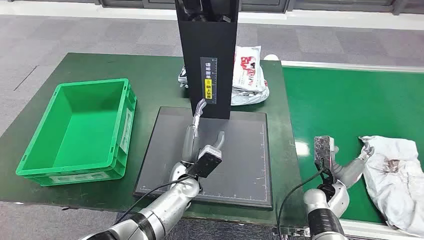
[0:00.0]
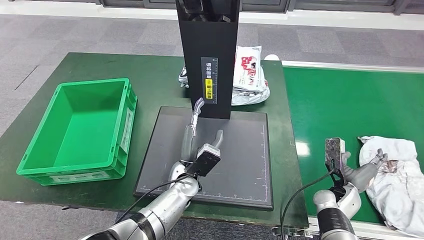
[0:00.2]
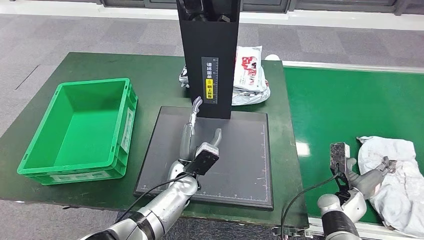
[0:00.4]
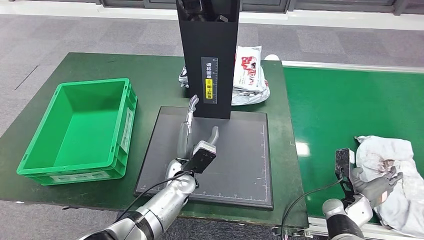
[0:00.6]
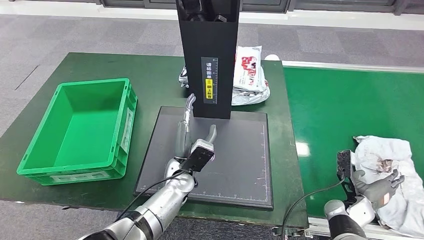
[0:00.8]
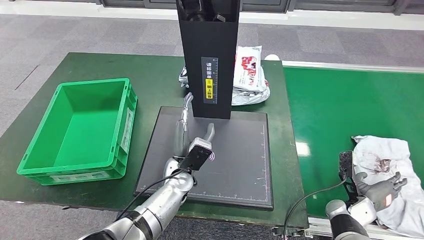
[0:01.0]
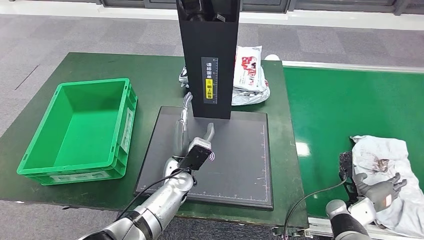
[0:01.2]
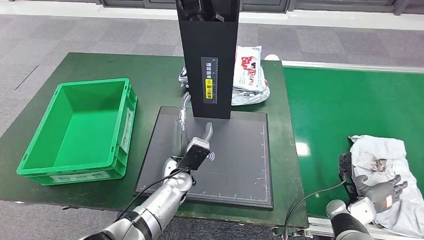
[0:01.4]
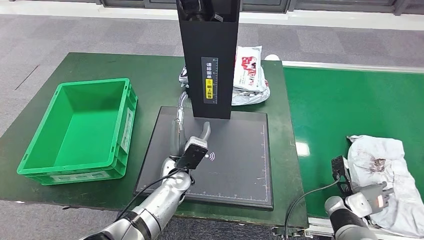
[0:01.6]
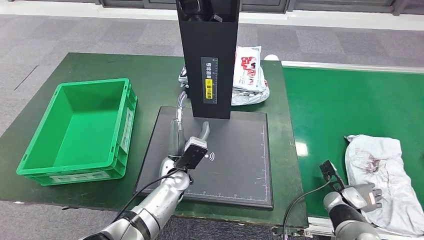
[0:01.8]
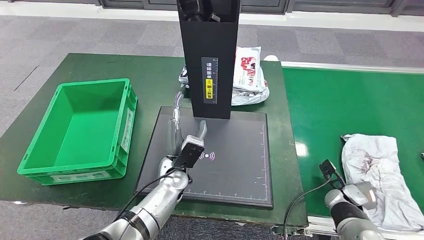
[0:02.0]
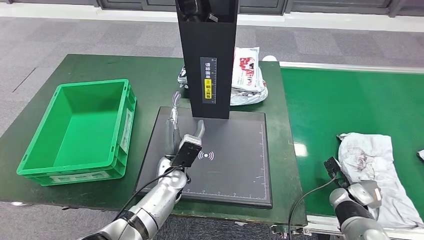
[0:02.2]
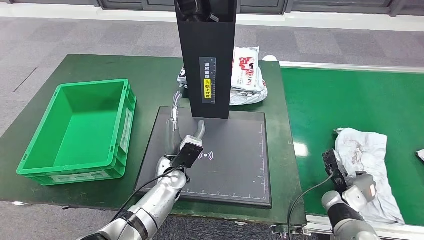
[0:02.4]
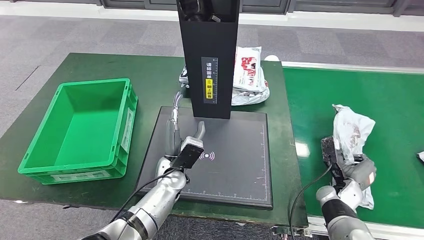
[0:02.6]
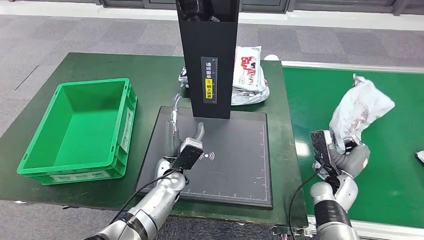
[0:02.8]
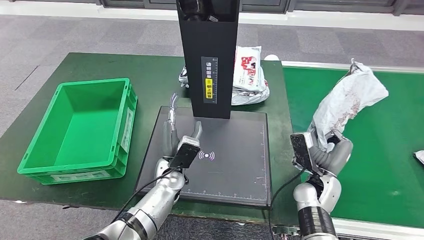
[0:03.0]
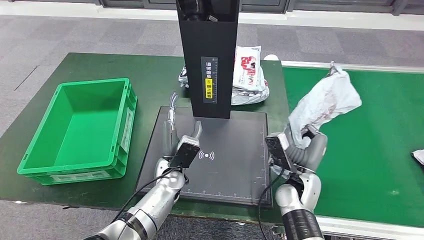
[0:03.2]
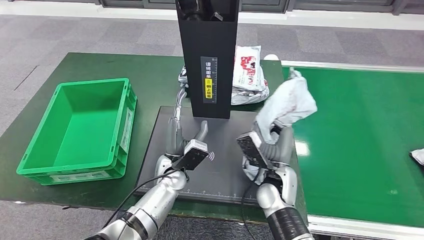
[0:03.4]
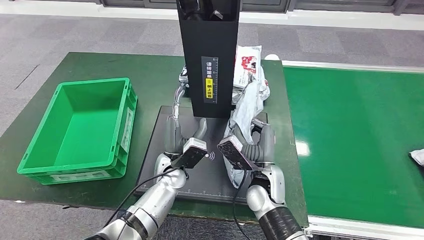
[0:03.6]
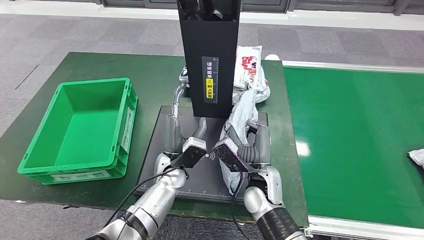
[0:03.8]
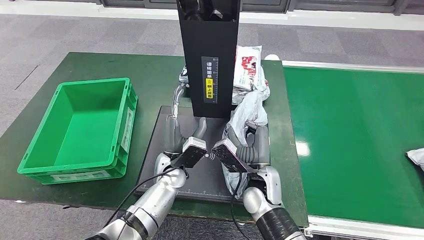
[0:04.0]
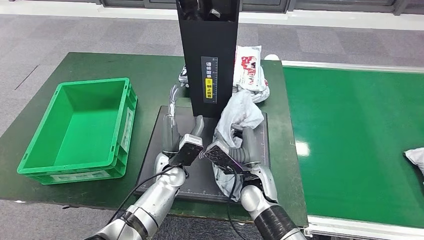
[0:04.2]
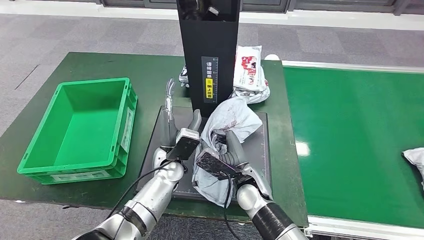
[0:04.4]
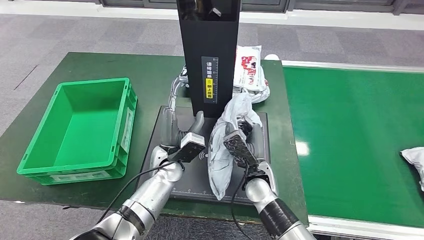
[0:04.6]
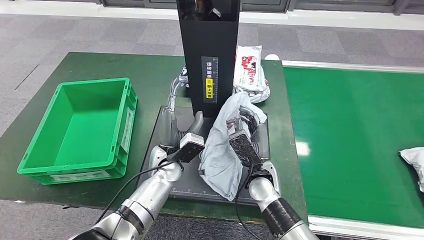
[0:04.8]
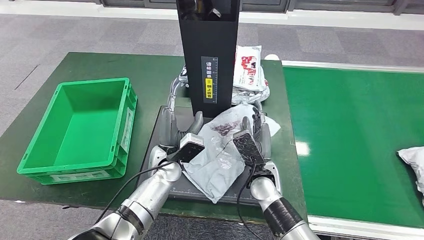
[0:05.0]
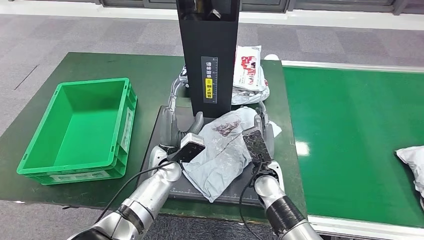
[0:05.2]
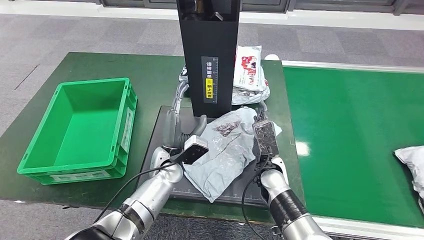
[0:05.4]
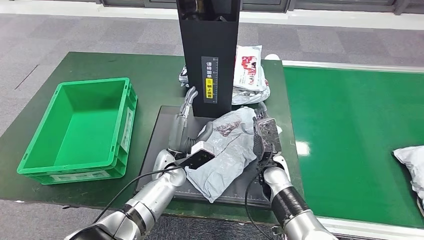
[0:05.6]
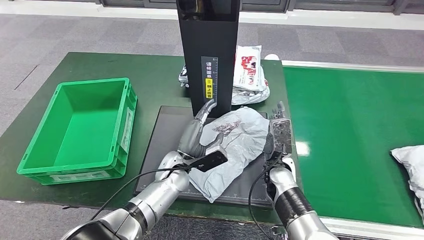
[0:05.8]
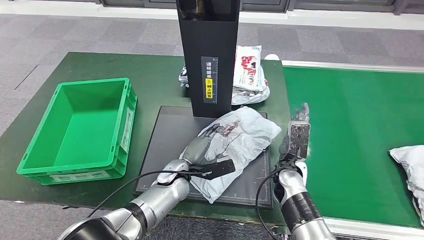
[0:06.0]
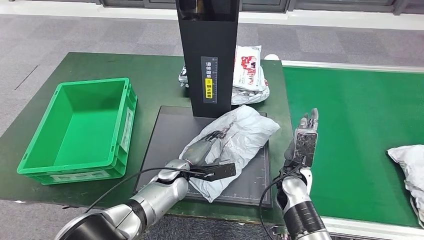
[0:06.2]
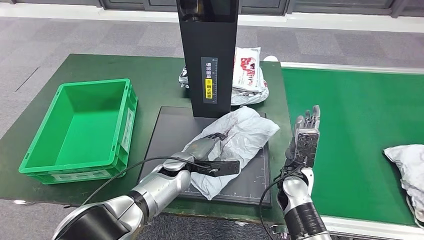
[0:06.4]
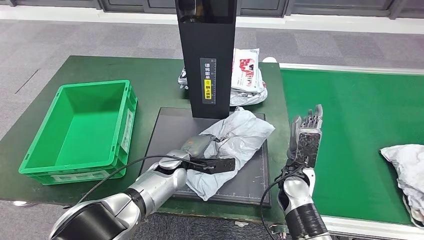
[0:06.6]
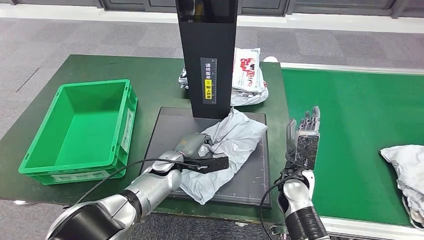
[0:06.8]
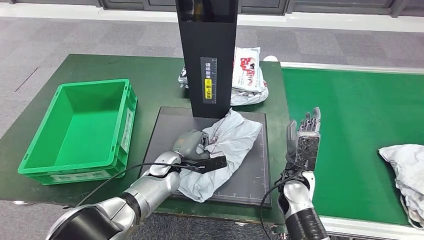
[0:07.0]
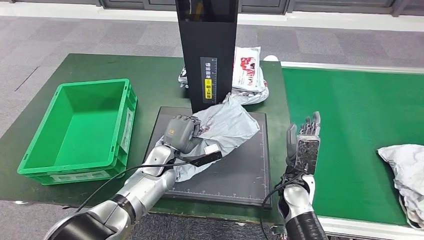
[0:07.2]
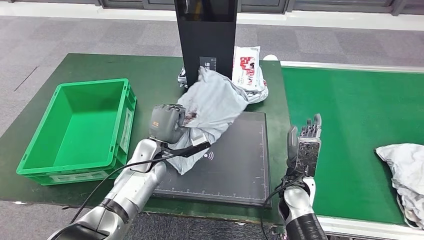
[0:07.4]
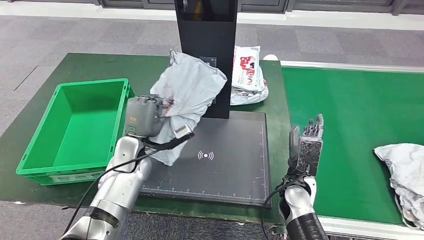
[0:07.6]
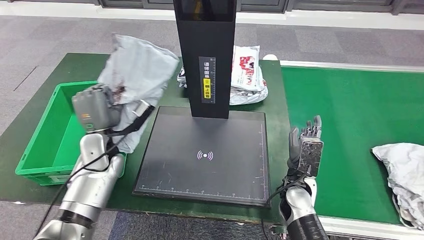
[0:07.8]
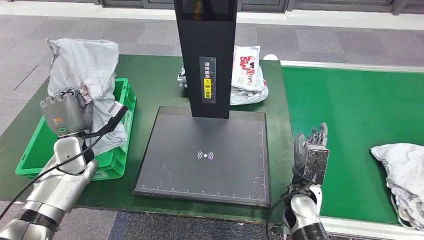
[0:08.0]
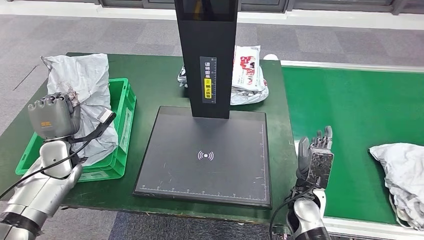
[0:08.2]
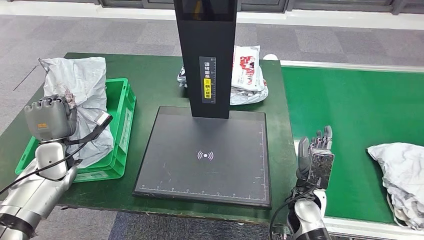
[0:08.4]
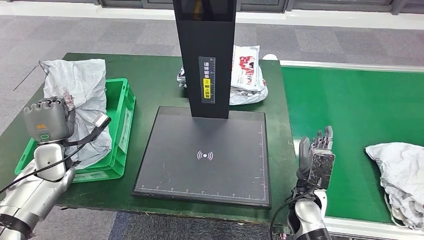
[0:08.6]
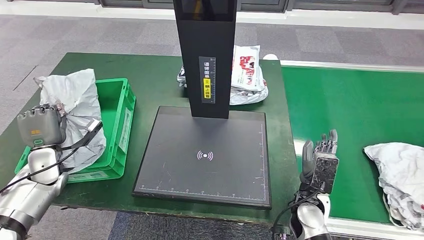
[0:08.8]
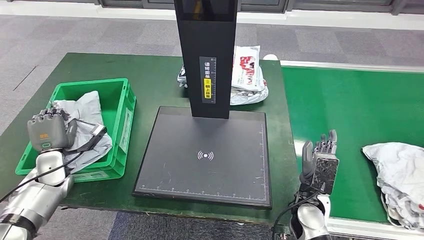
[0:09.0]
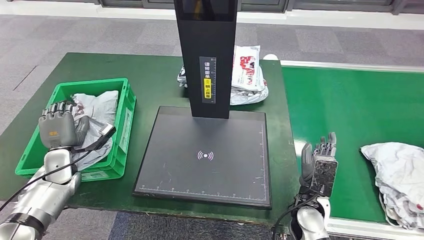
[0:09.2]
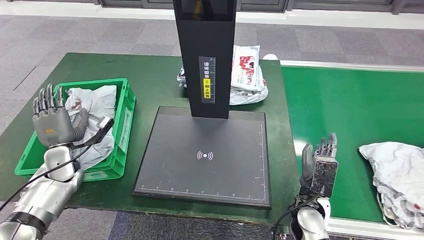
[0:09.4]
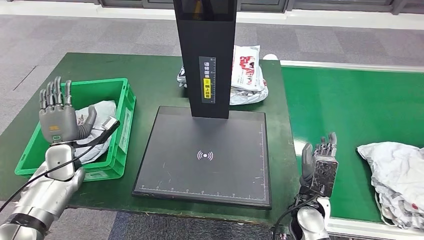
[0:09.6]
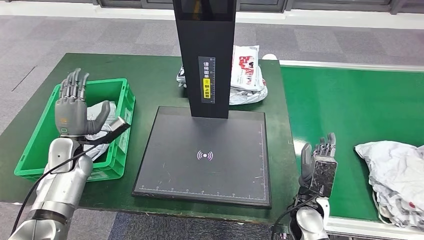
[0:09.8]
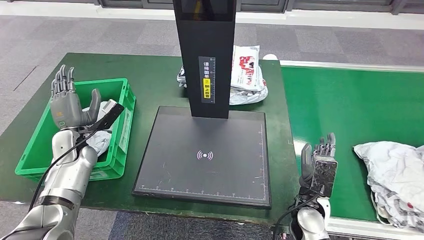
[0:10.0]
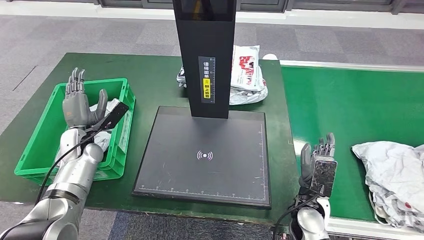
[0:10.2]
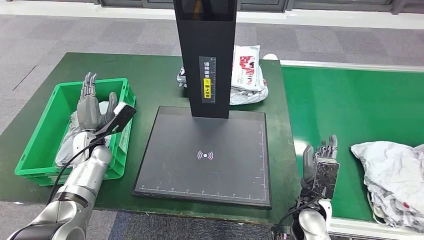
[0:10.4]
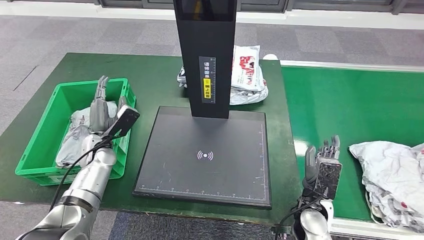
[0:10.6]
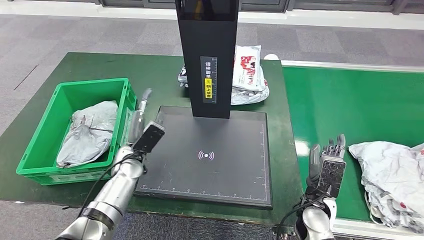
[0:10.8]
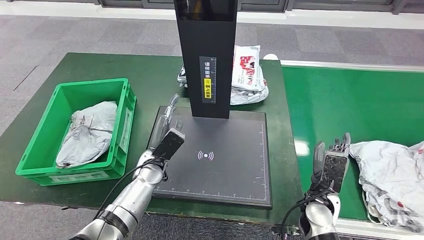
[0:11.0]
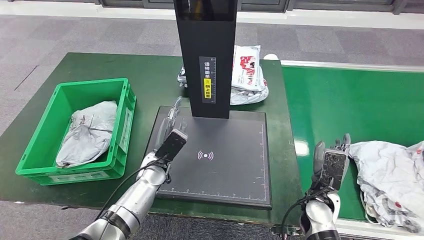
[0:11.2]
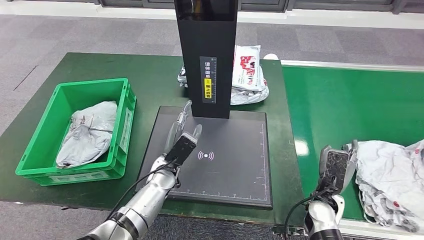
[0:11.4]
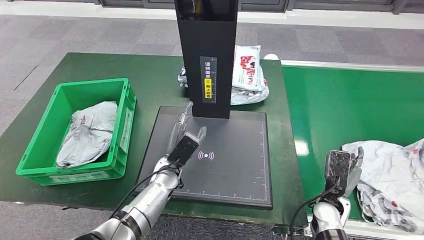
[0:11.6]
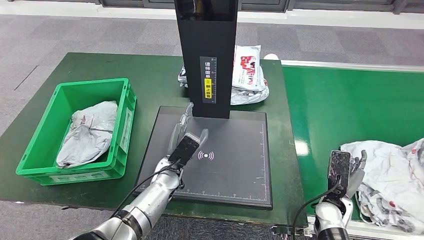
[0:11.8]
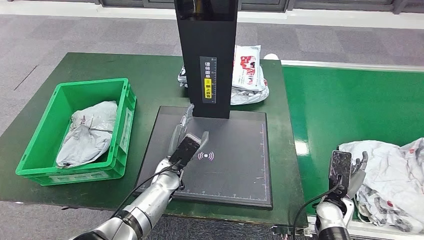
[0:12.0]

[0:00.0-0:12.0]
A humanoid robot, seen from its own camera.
Step, 0.0 to 3.0 s: Take the parcel off the conveyor belt.
Step, 3.2 to 6.0 s: Place the parcel onto the inbound machine.
Step, 6.2 to 7.8 s: Pick up the parcel from the inbound machine.
Step, 8.0 to 10.0 s: Put the parcel inside the courier box.
4.4 to 6.0 s: The left hand goes roughly 5 cm downward, while the right hand is displaced to the right by about 10 cm.
9.0 to 10.4 s: The left hand moves to the right and forward, some 10 cm.
10.4 to 12.0 s: The right hand shifts about 10 cm to the right. The left hand moves to the right, approximately 25 cm.

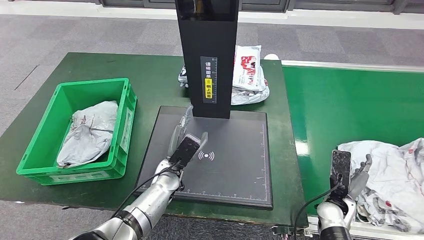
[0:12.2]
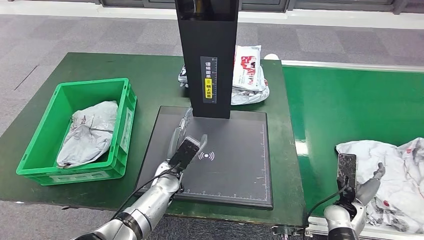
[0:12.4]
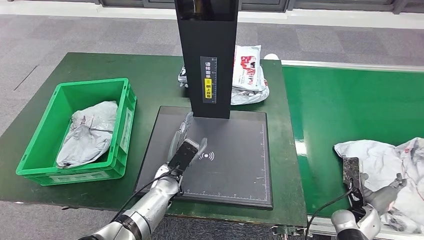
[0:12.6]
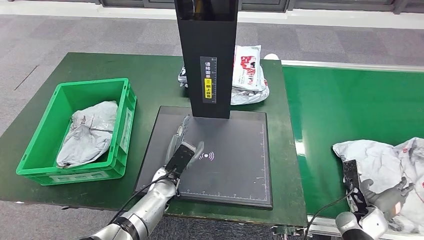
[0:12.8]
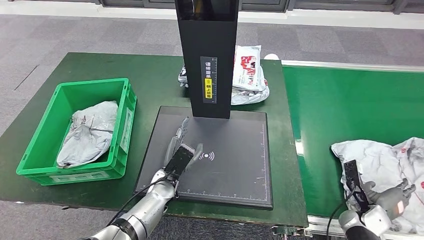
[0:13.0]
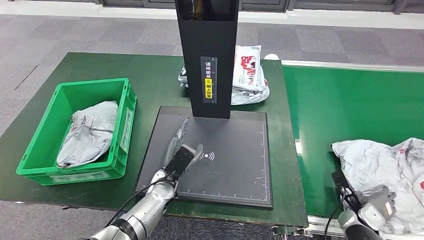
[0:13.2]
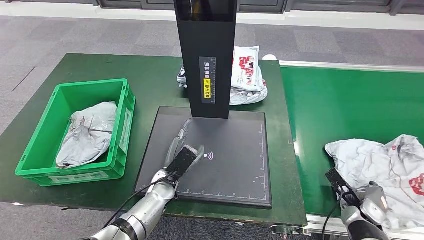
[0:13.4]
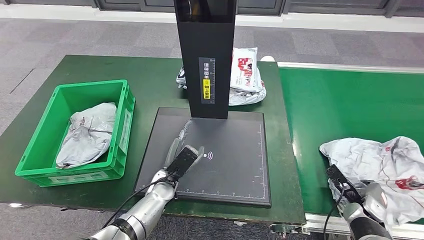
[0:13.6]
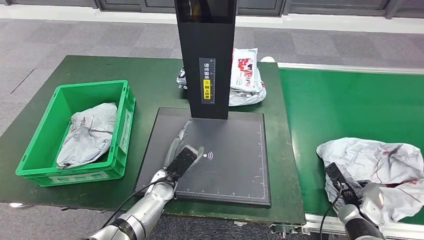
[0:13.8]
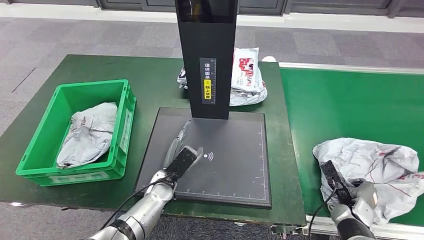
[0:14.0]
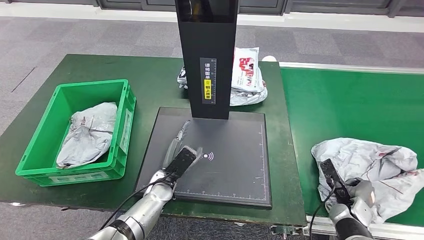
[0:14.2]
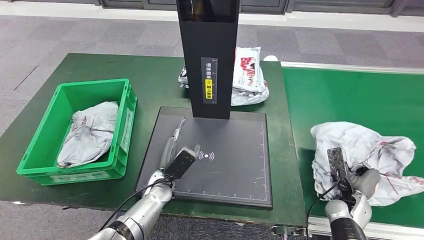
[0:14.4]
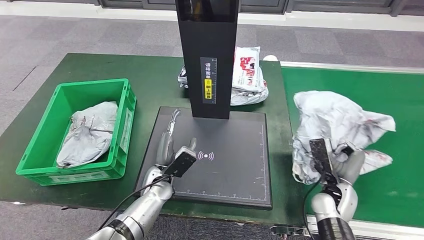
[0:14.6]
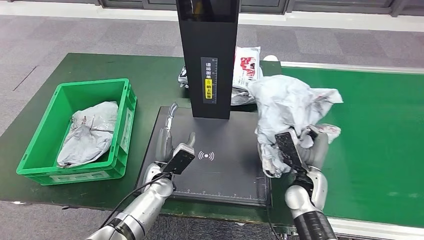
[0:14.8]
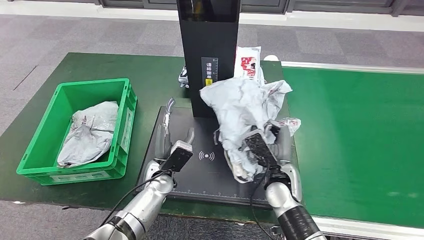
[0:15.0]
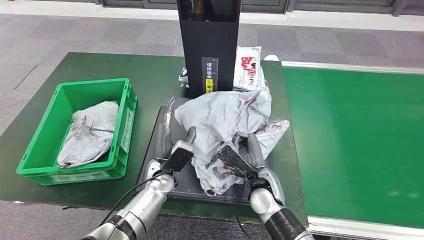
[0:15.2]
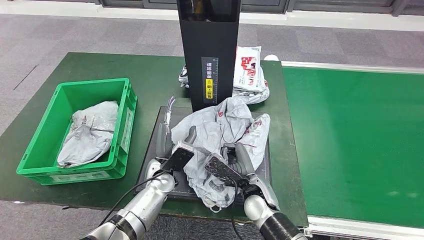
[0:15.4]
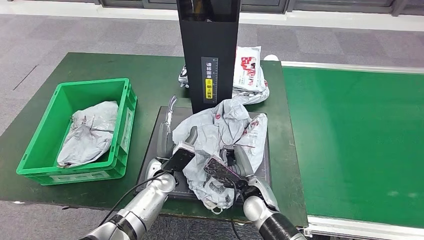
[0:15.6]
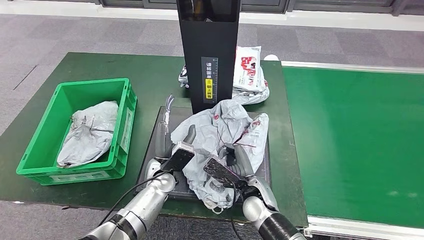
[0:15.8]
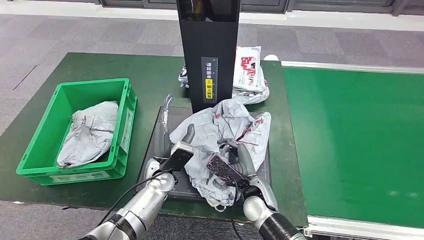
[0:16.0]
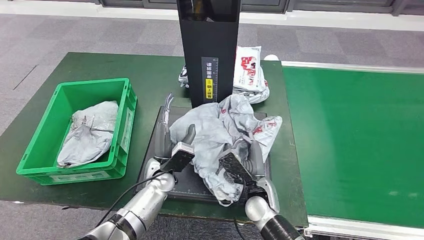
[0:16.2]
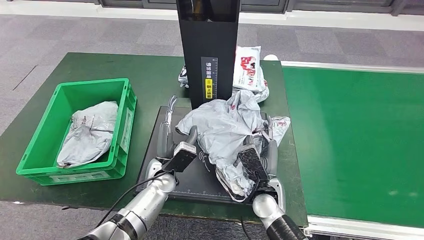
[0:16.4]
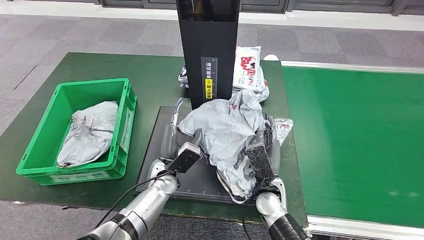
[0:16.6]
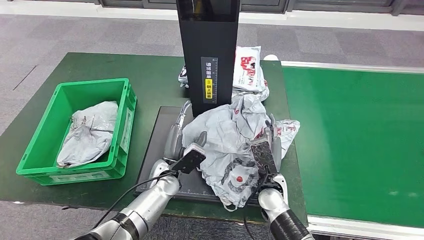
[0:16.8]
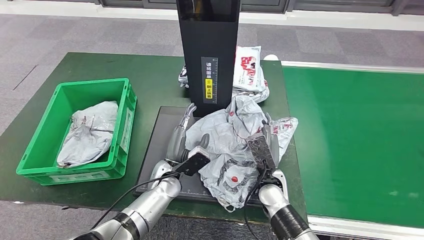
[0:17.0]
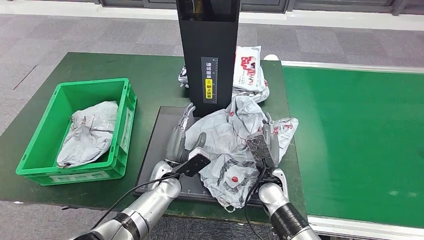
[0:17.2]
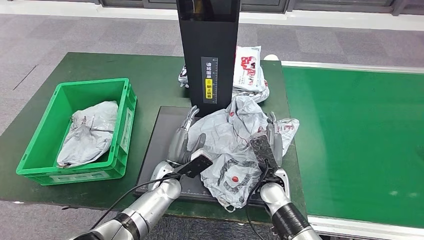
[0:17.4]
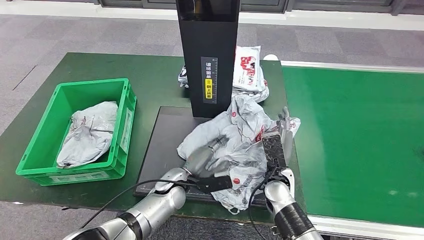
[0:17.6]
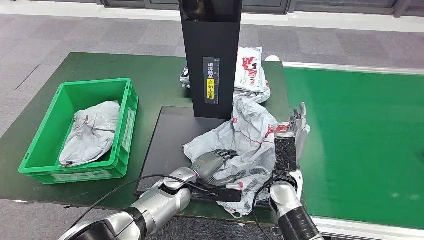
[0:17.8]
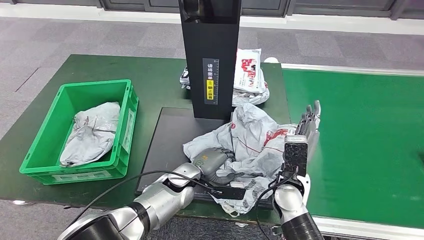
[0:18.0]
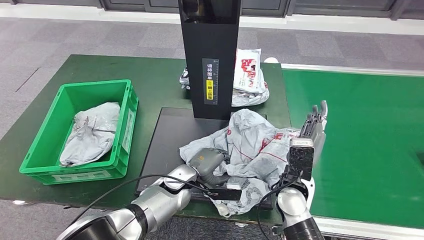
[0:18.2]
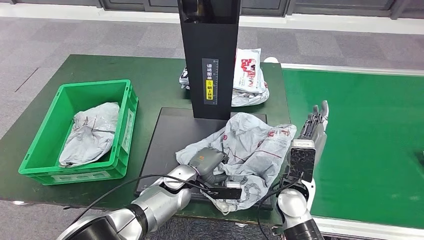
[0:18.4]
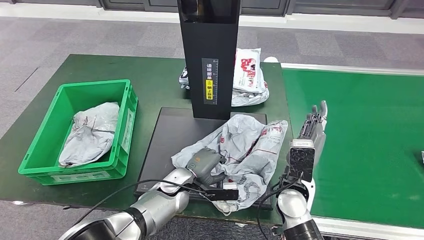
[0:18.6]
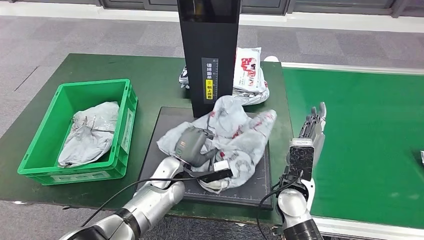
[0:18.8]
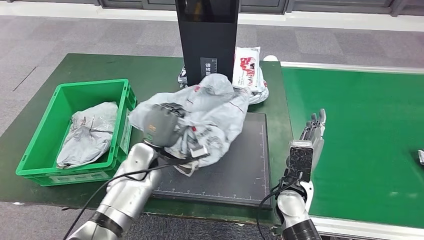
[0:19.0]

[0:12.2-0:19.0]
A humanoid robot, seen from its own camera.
Step, 13.8 to 14.8 s: Pick up the parcel from the conveyor belt.
Step, 15.4 to 17.0 s: Place the parcel onto the inbound machine.
15.0 to 16.2 s: The right hand moves approximately 5 cm.
16.2 to 17.6 s: The right hand shifts by some 5 cm; the left hand moves approximately 5 cm.
